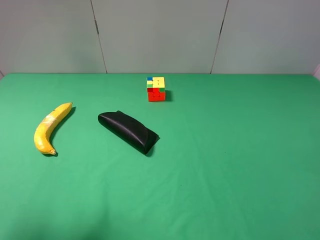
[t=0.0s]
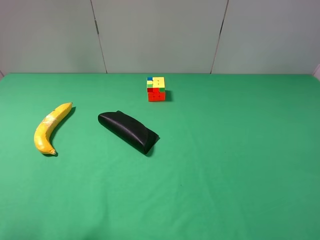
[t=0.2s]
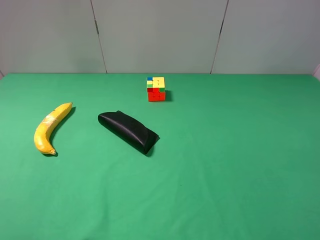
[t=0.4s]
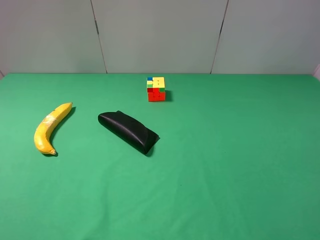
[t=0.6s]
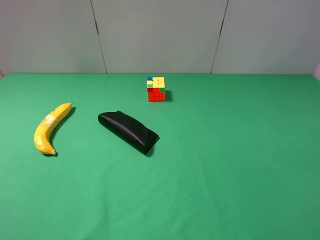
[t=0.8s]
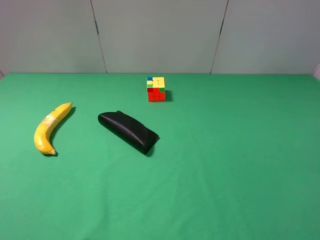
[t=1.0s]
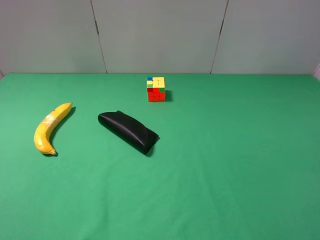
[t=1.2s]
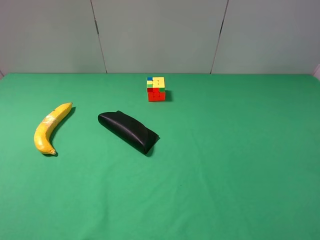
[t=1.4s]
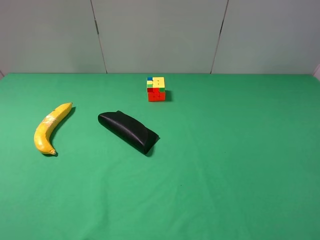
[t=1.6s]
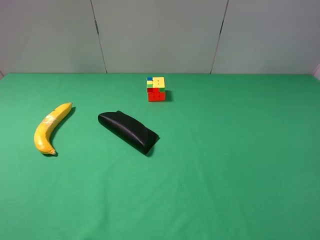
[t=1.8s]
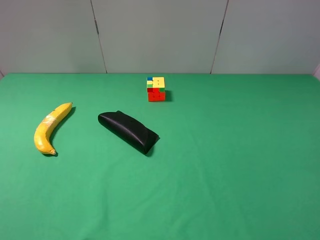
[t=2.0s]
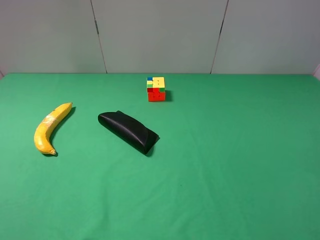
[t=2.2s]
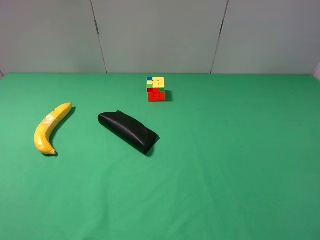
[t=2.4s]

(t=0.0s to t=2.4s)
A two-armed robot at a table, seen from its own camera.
Task of the whole recording: use the right gripper to pick up the item and transfer it from the right gripper to the left gripper.
t=0.0s - t=1.2s: The left gripper moves backward and downward, approximately 10 cm.
t=1.2s - t=2.4s: Both grippers stay put.
